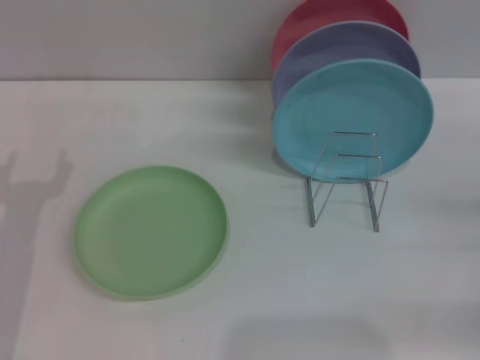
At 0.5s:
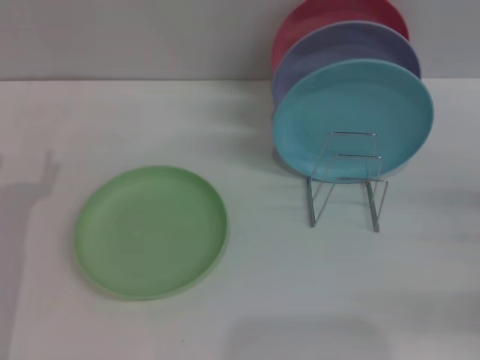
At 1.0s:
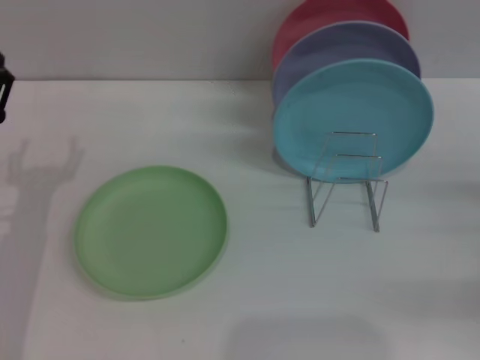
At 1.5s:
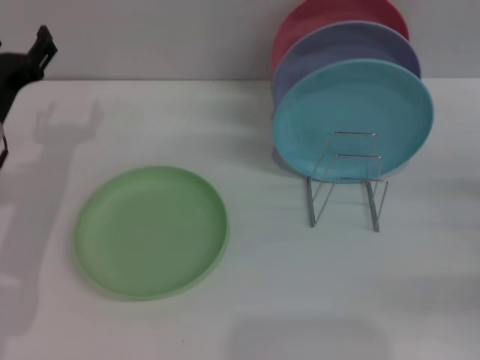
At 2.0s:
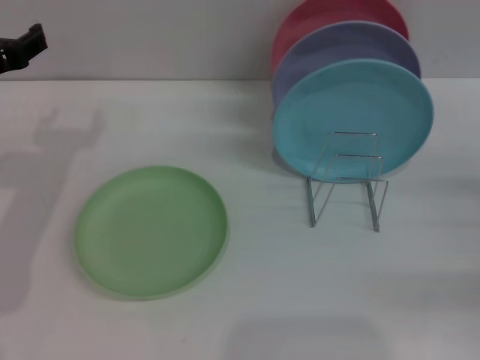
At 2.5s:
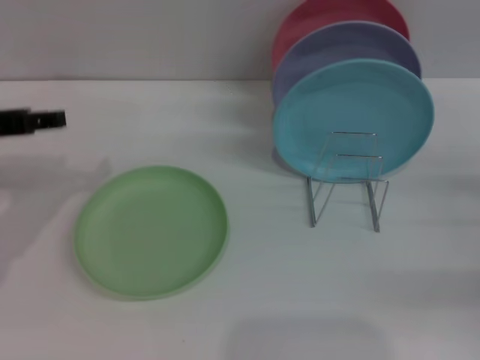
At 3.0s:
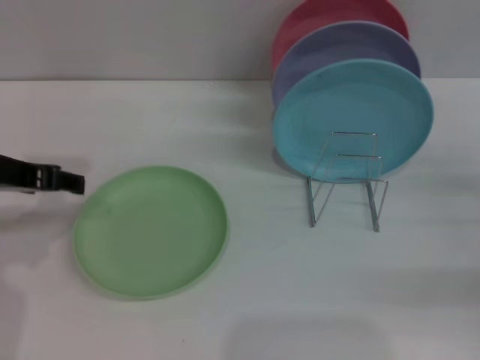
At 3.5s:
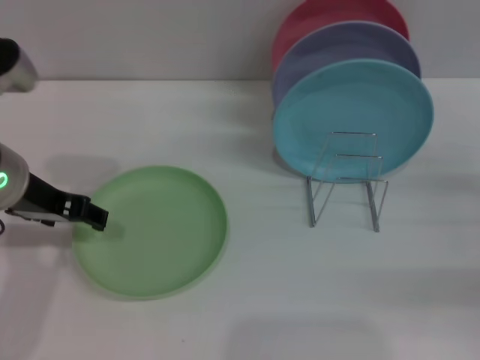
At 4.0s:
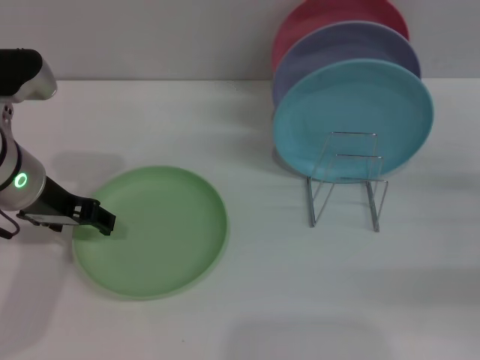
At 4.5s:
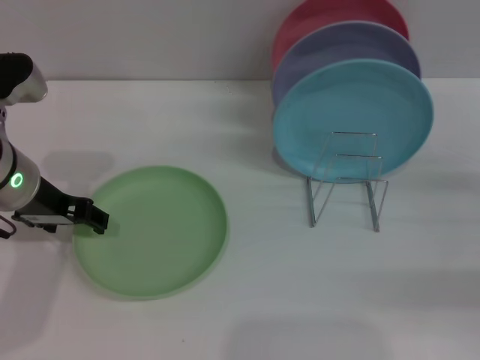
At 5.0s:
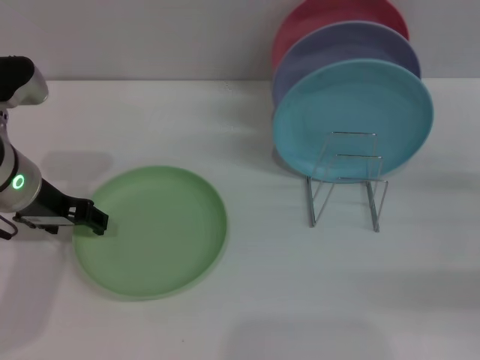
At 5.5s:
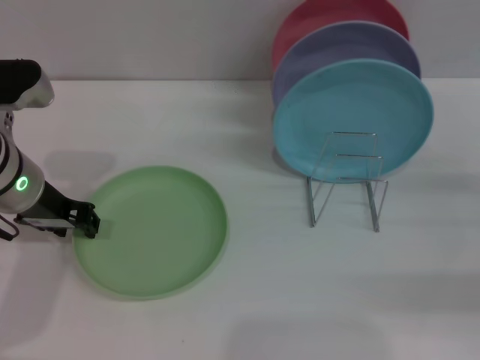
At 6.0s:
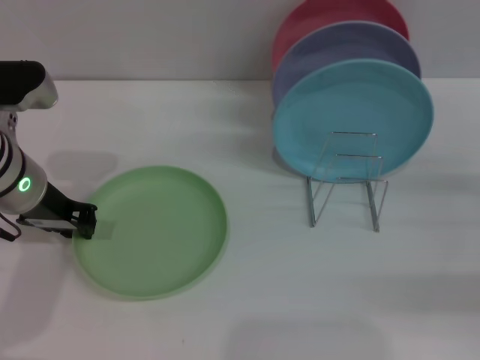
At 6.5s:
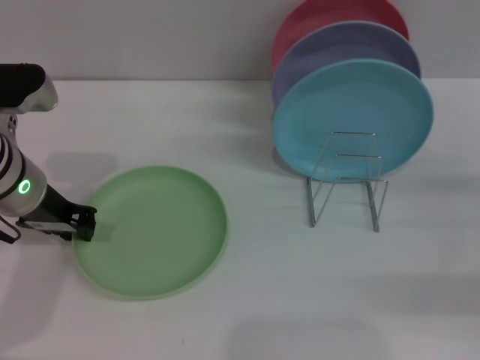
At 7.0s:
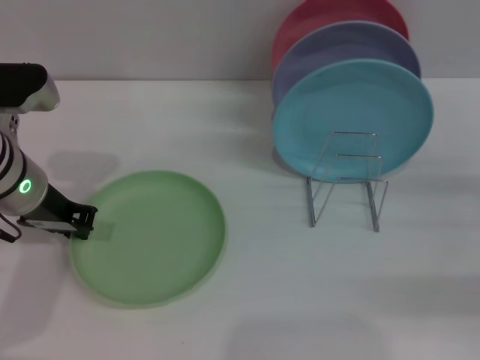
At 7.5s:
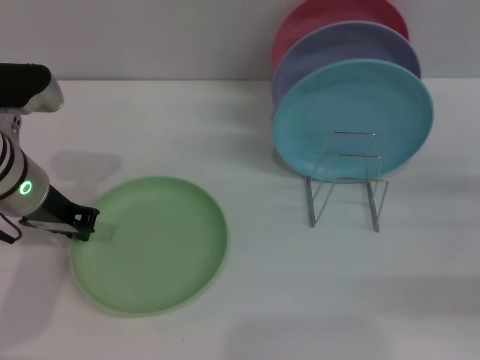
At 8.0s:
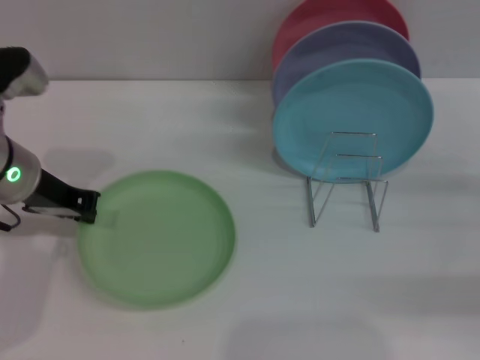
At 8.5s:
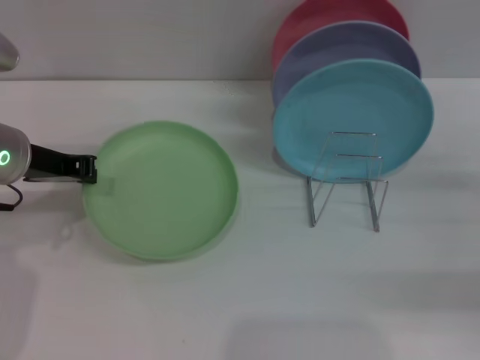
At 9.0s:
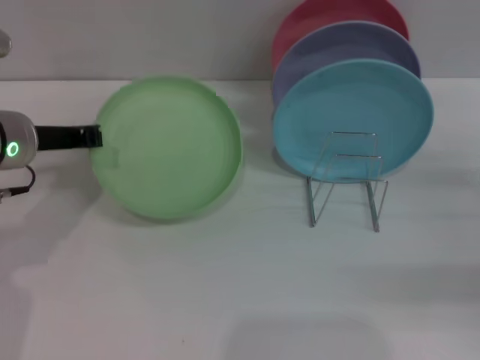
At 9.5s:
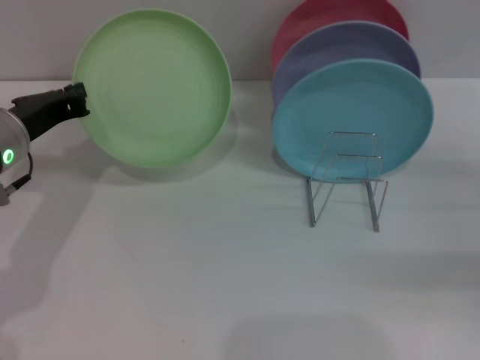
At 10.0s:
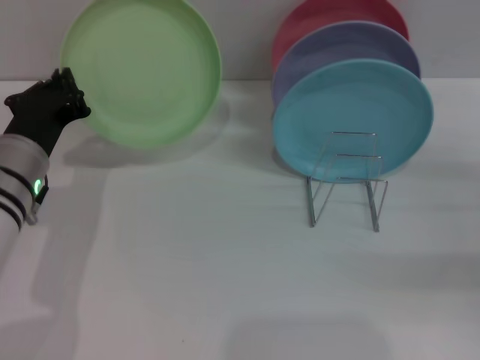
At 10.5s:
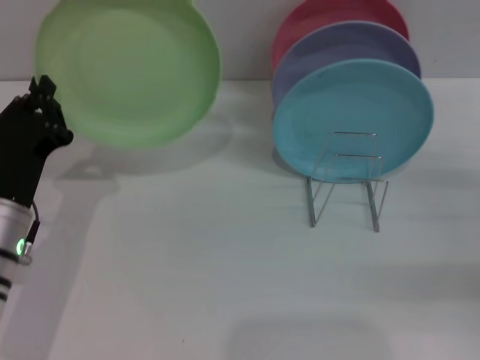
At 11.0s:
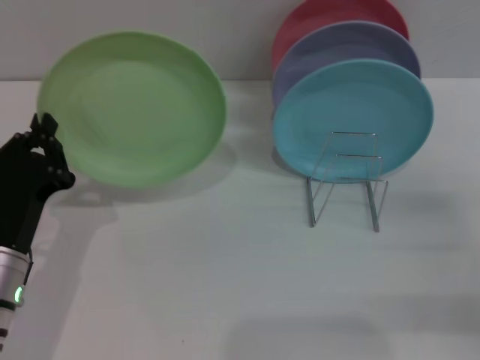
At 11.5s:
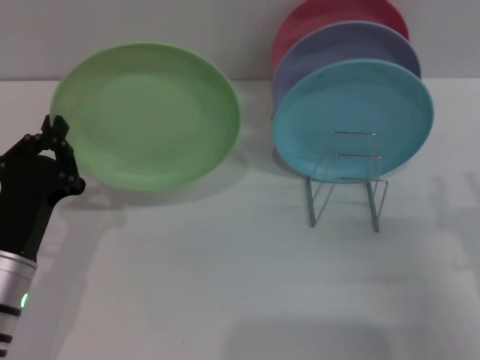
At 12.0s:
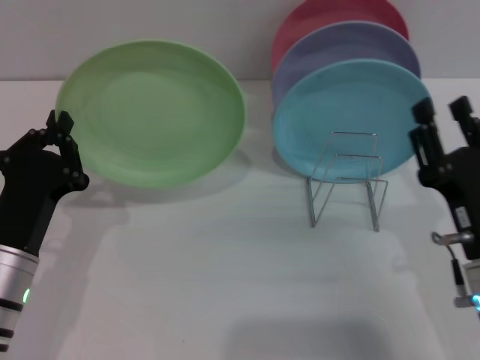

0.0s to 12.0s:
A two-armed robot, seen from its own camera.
Task of the whole recording: Grip the plate with one hand, pass it to the other, then set it on the shelf.
Step, 0.0s to 10.0s: Pick up the plate with the left gripper.
0.0s to 2.0s: The left gripper is displaced upward and forward by approximately 15 cm.
2.0s to 4.0s: The left gripper shifts approximately 5 cm to the right.
4.0s to 6.0s: The left gripper closes up.
6.0s to 8.0s: The grippers stay close to where they were, moving slightly.
8.0s to 10.0s: The left gripper heads downward, covering roughly 5 cm.
10.0s to 12.0s: The left gripper heads backward and downward, covering some 10 cm. Meanwhile the right gripper heads to the left, covering approximately 15 cm.

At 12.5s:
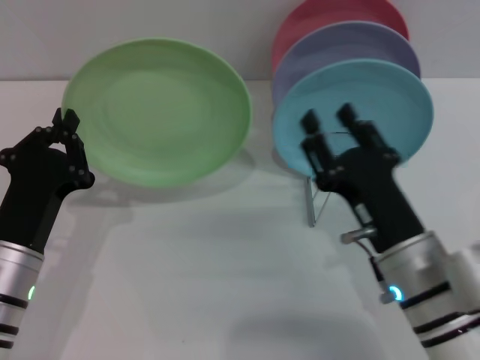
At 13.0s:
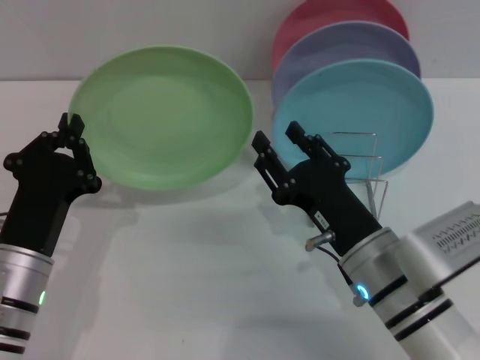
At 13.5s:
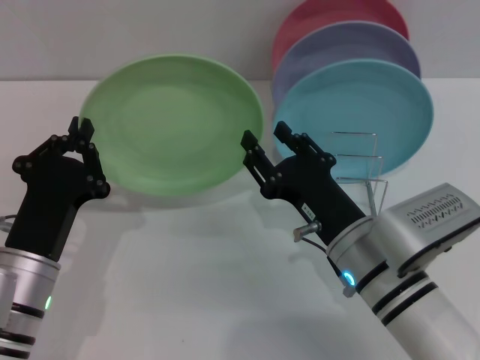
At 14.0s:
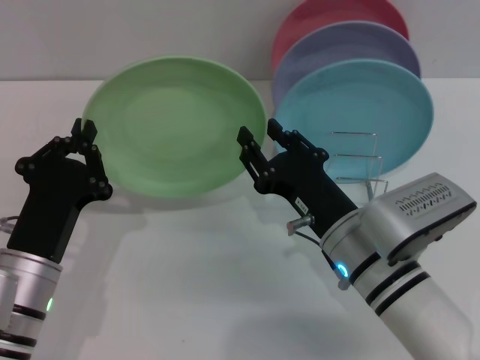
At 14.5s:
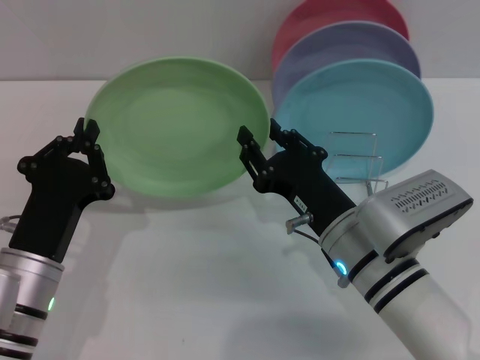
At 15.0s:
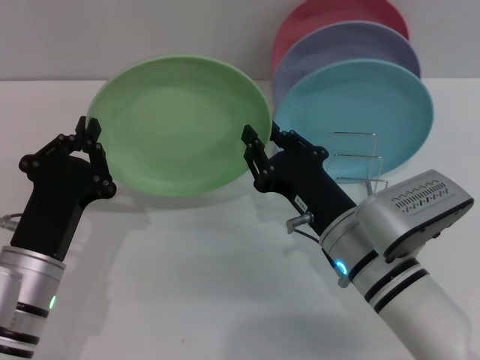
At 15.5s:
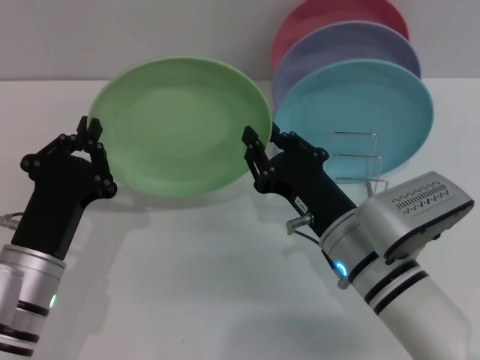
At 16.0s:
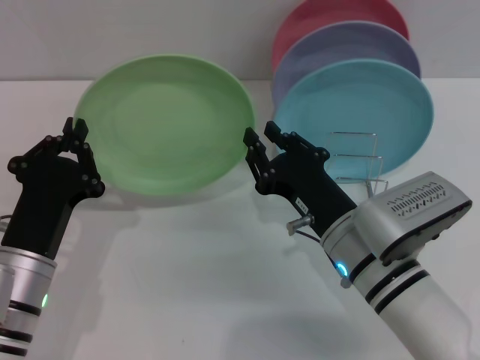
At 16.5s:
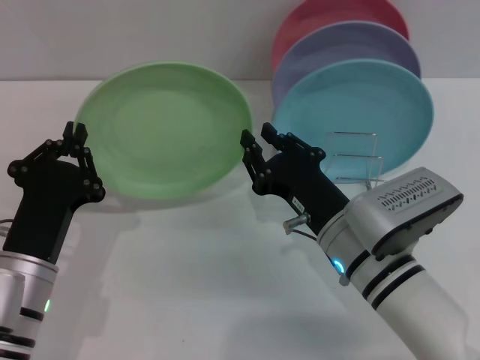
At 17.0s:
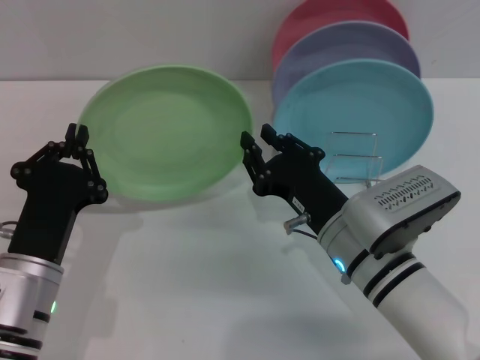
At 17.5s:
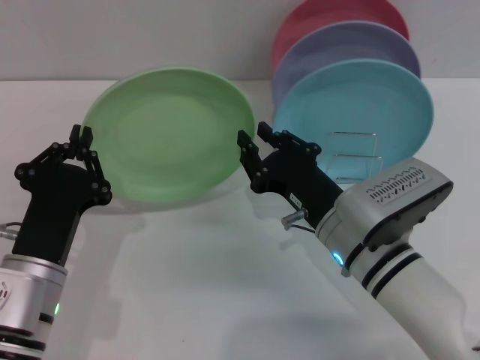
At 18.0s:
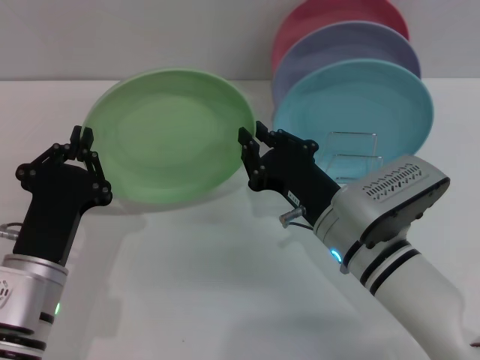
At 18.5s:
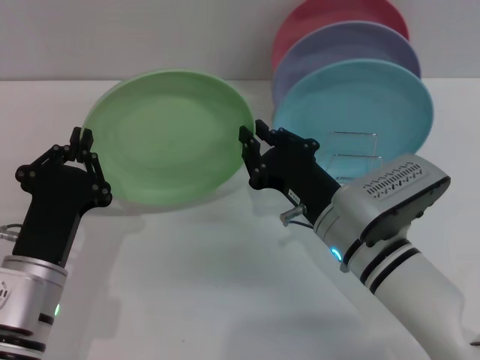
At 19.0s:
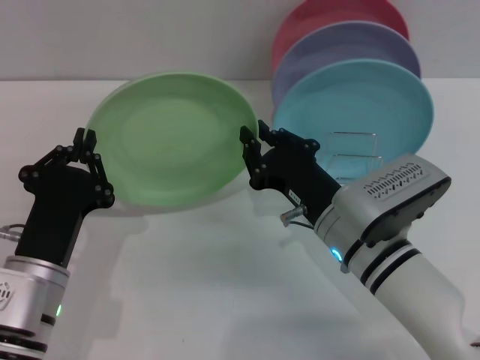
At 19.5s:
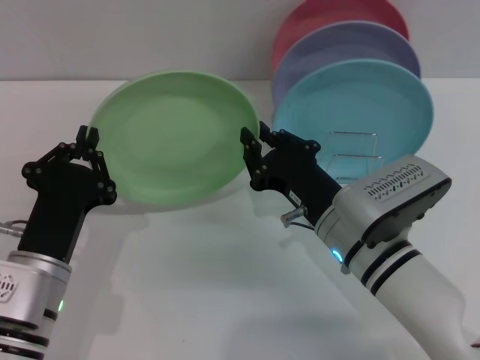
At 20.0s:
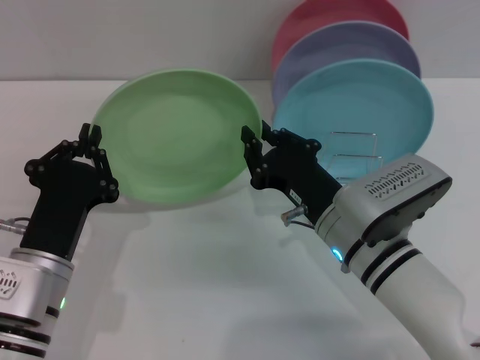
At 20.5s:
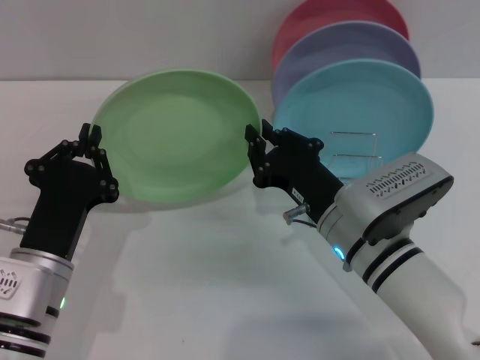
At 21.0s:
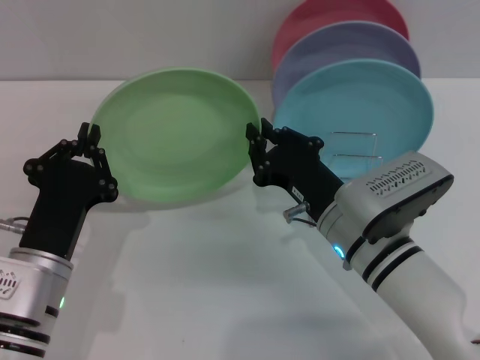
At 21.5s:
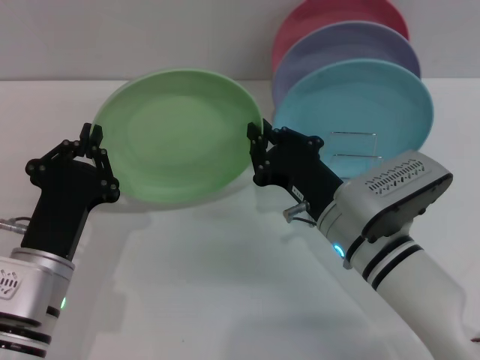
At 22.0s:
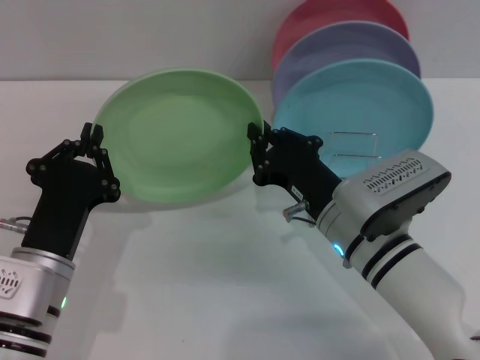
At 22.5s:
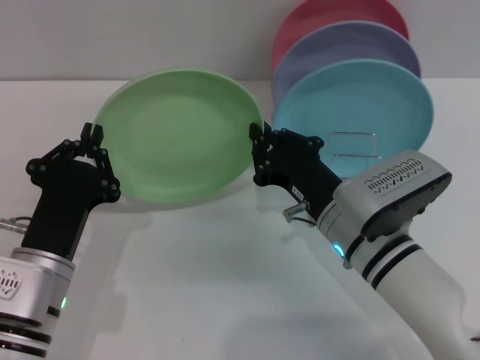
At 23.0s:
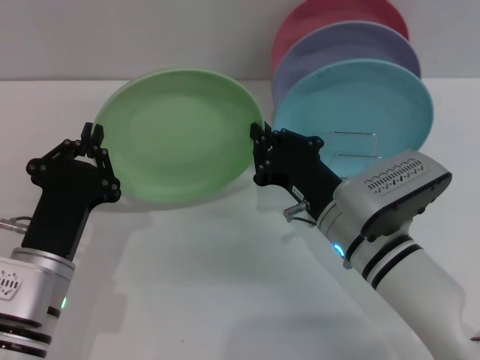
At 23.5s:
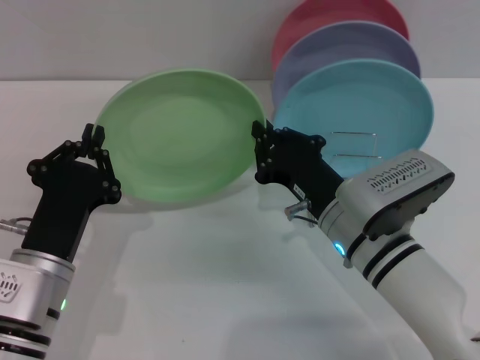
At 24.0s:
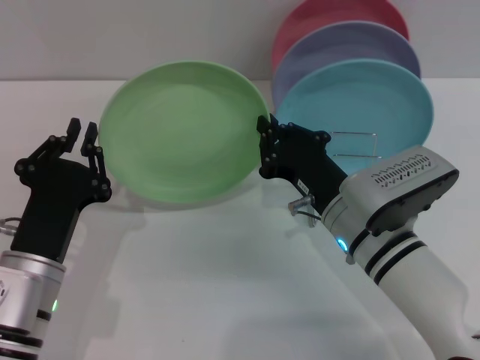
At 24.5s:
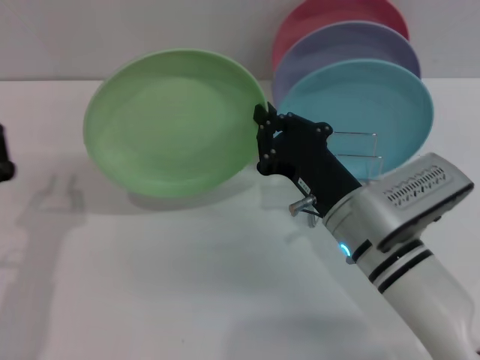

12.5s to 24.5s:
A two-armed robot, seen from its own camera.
Task of the whole recording: Grip the plate with one hand, pass it to the other, then set it on the shelf.
Step, 12.5s to 24.0s: Pass the plate from the left gripper to the right gripper.
14.5s to 18.5s: The grippers move only a little.
18.5s to 22.5s: Both grippers stay put.
22.5s to 24.5s: The left gripper ends up roughly 5 cm from where it was.

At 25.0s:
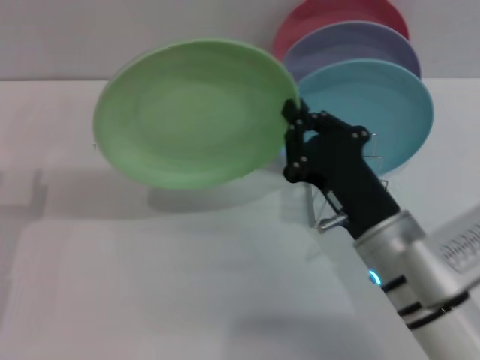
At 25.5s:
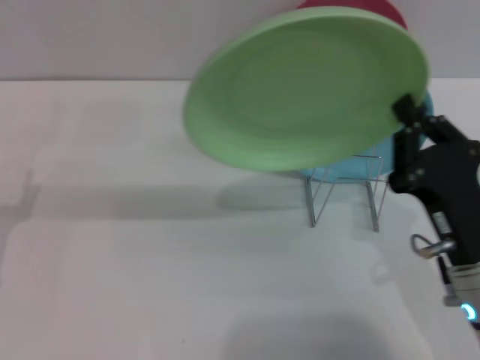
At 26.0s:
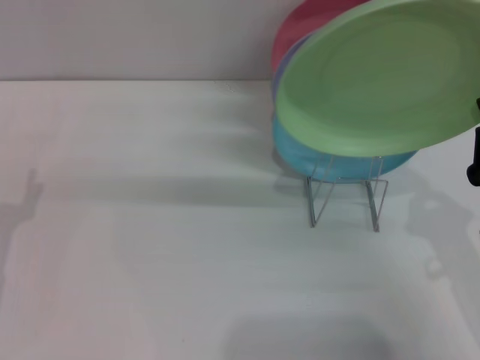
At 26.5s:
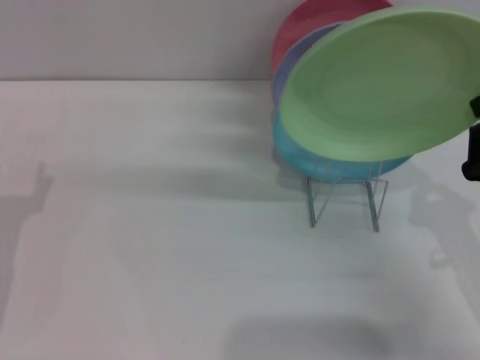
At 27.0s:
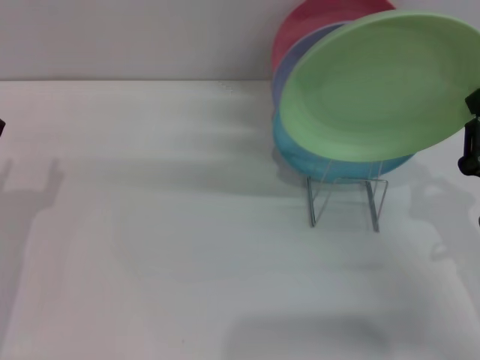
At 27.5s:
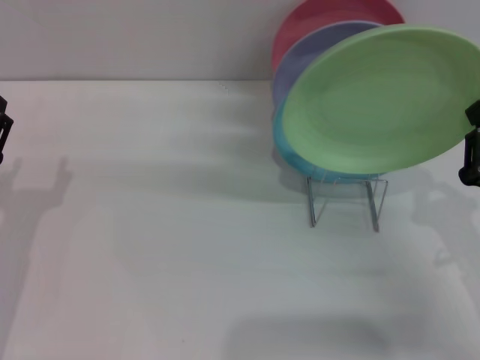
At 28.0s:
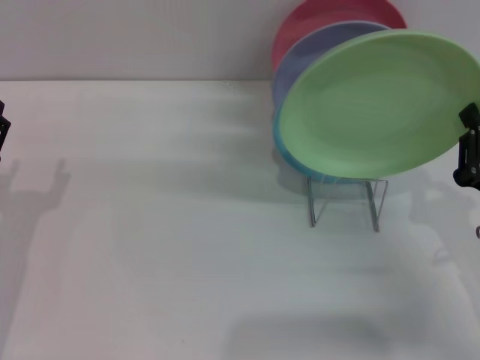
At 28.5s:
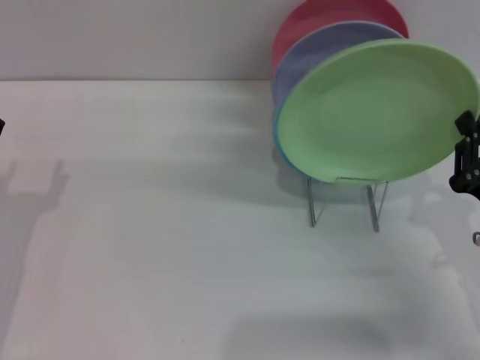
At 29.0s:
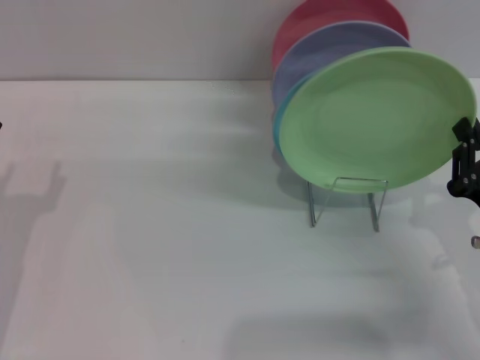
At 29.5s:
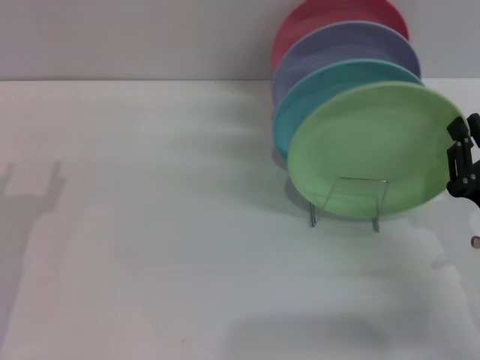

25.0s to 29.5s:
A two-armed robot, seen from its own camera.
Task of the whole recording: Grip the plate with one hand, pass it to the other, then set it on the shelf.
25.0s to 27.0s: The left gripper opens. Meanwhile the right gripper is displaced to the right by roughly 15 cm.
27.0s to 29.5s: The grippers move only a little.
